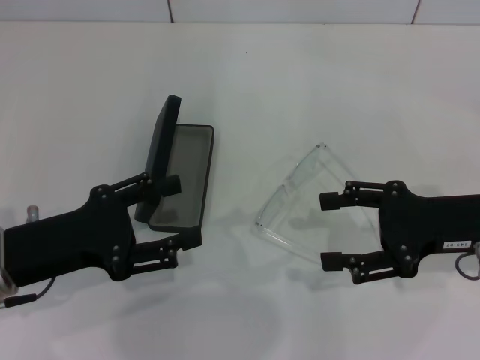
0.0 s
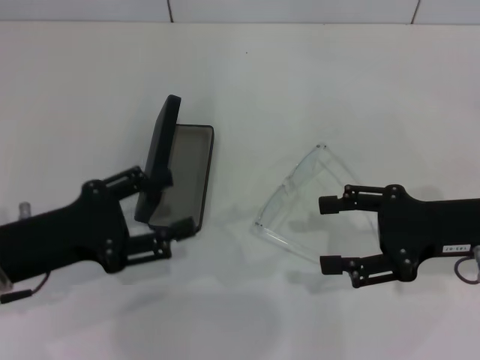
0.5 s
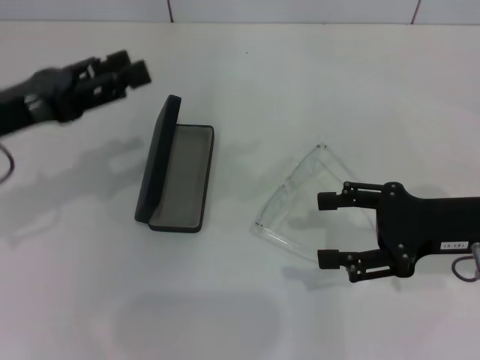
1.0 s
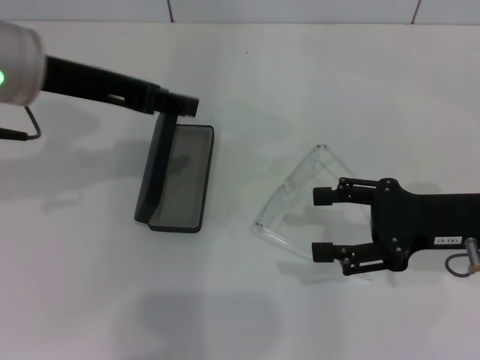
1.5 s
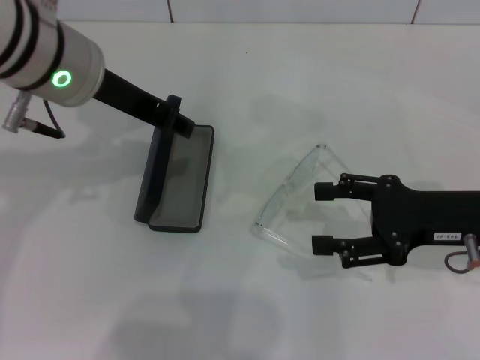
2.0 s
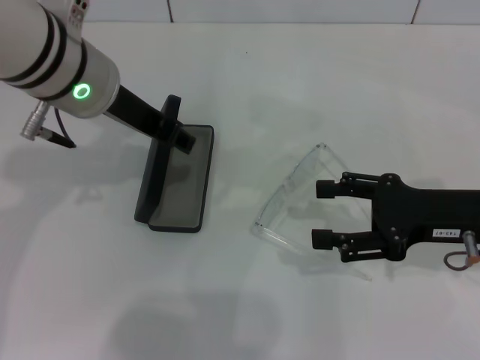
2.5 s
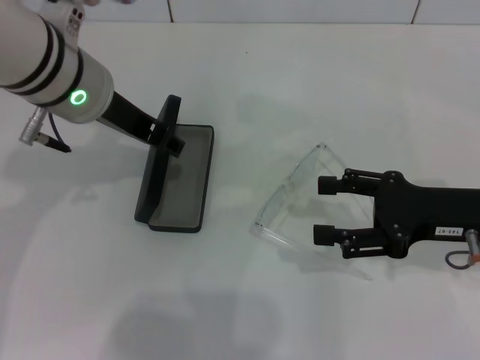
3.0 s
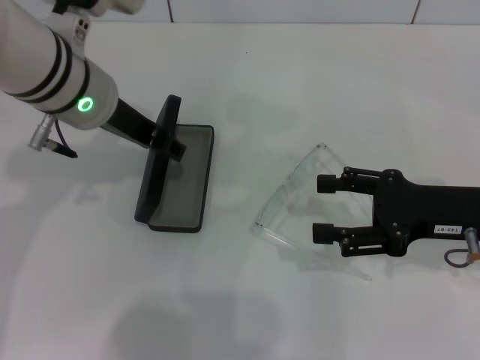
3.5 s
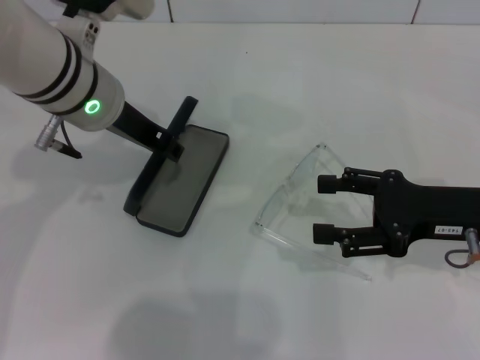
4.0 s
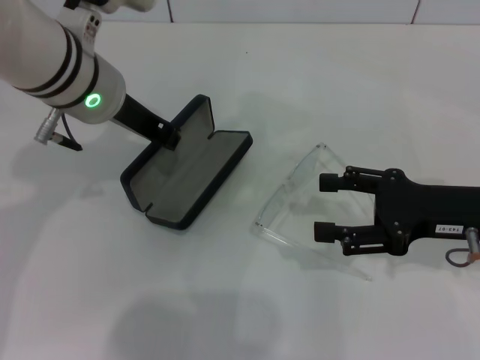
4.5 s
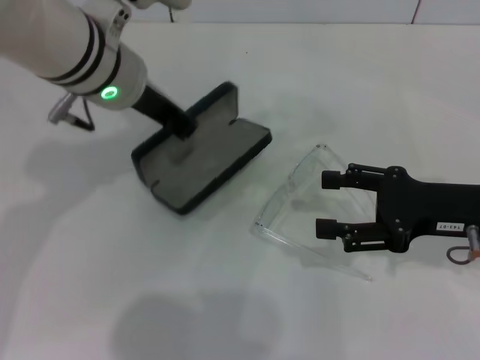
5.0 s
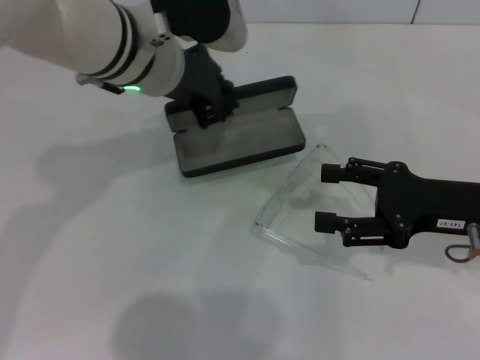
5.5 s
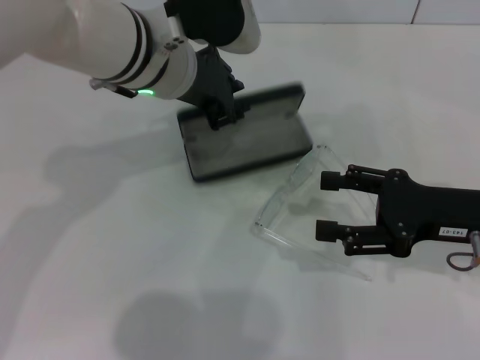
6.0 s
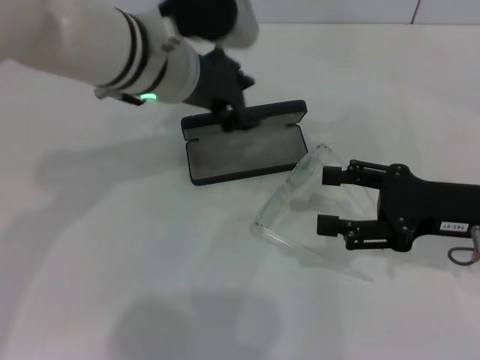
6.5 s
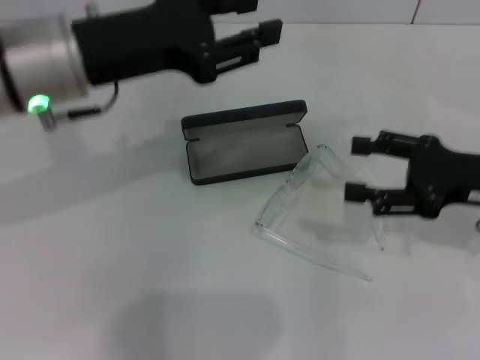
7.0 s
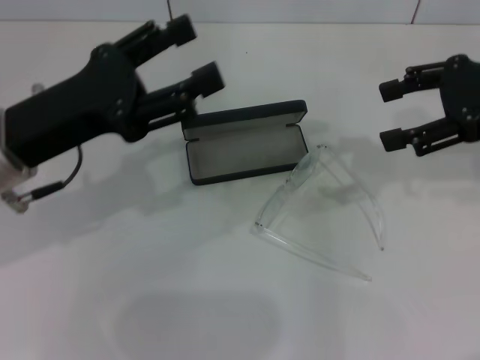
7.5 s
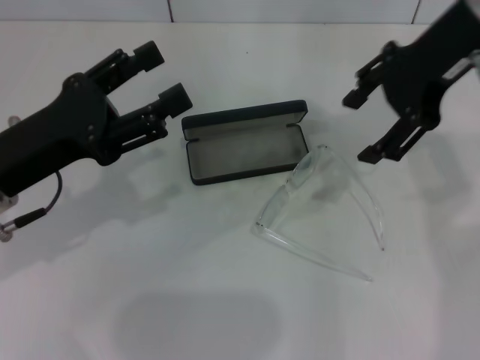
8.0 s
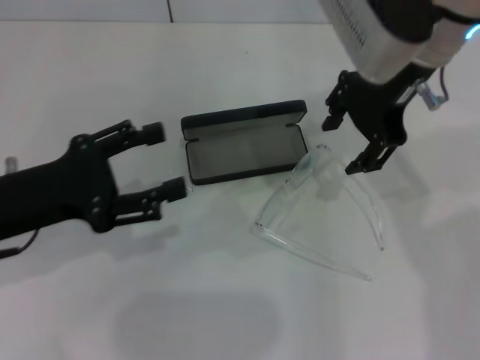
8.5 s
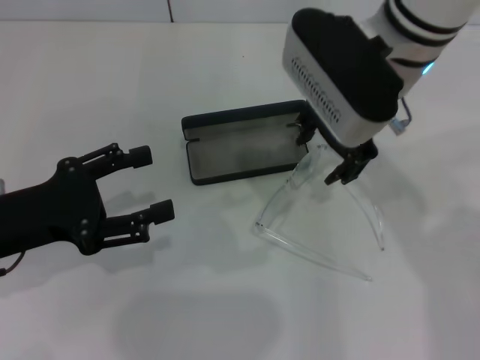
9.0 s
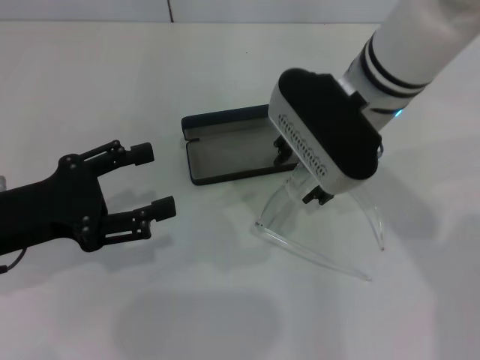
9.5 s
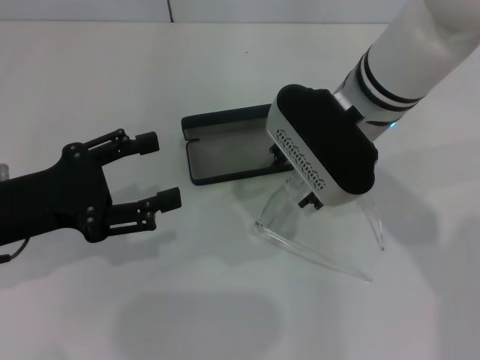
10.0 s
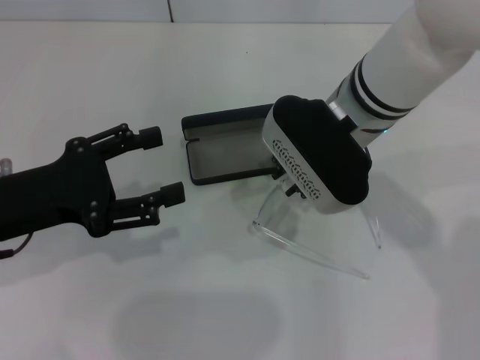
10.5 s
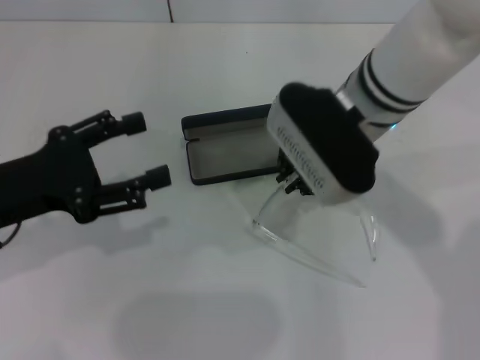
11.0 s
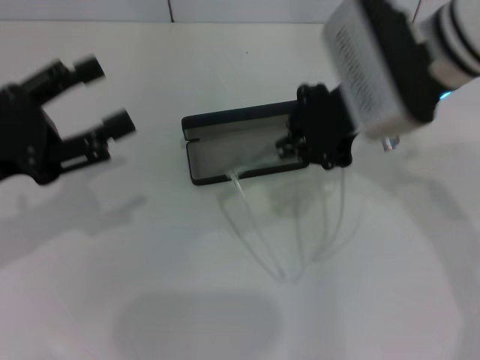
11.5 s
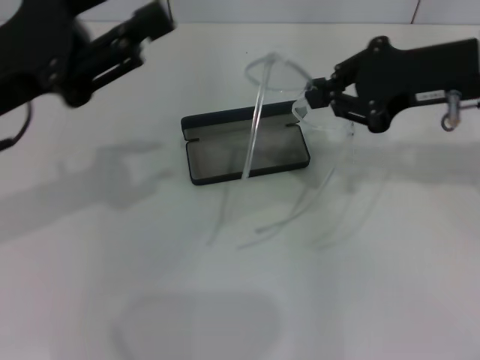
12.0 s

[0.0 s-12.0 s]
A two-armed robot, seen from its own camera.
Step, 0.0 to 4.0 s: Grab the glasses case with your left hand.
Step, 4.5 to 6.0 s: Place the glasses case in the center of the table with your left hand.
Step, 6.5 to 10.5 s: Grab the eyeglass frame with your right hand.
0.0 to 2.0 s: The left gripper moves upward, forward and to the right, some 20 cm.
2.0 to 4.0 s: The left gripper shifts by about 5 cm.
4.0 to 6.0 s: The left gripper is displaced to the right by some 5 cm.
6.0 to 8.0 s: The right gripper travels upward, forward and to the left by about 25 cm. The left gripper heads to the left and backward, covering some 20 cm, and opens its fingers.
8.0 to 10.0 s: The right gripper heads downward and to the left, covering approximately 15 cm.
10.0 to 12.0 s: The left gripper goes some 5 cm upward; the right gripper goes approximately 15 cm to the right, and closes up.

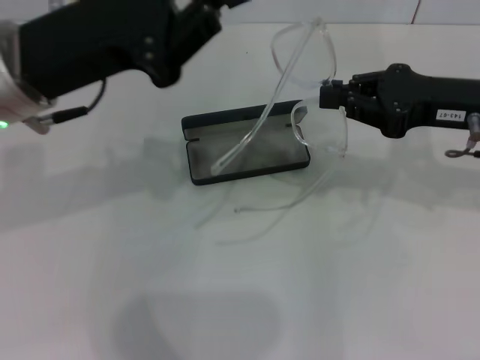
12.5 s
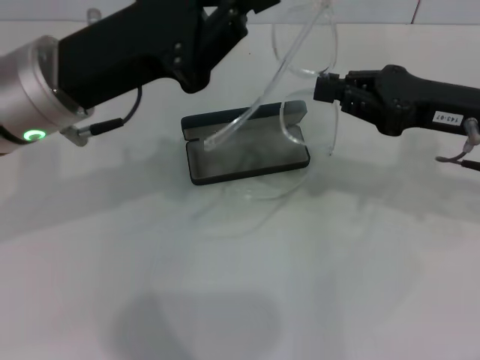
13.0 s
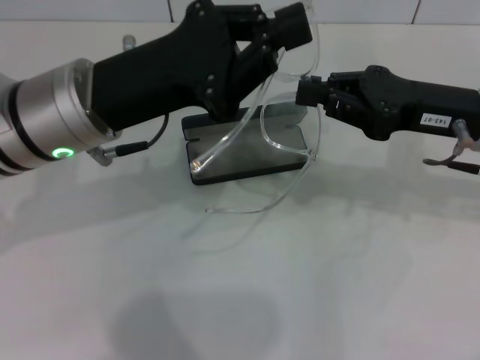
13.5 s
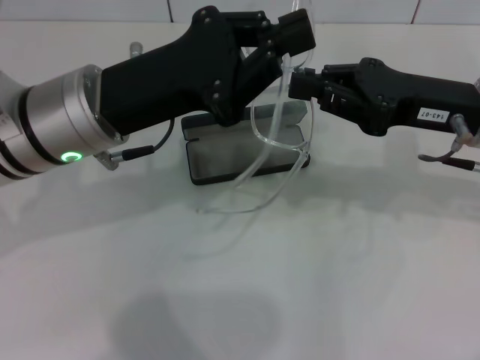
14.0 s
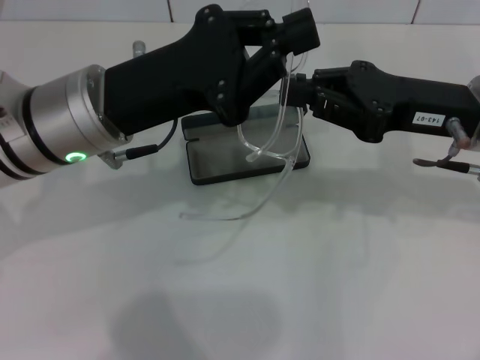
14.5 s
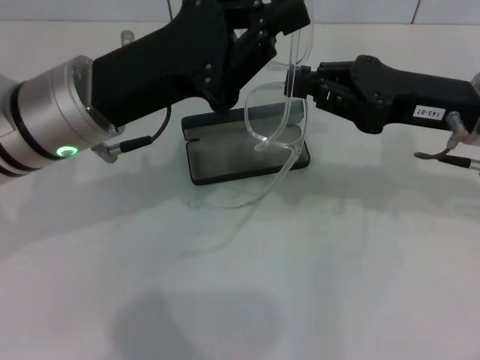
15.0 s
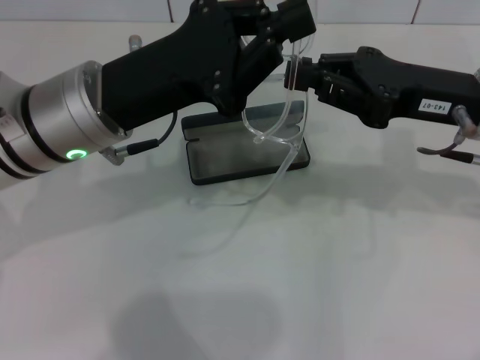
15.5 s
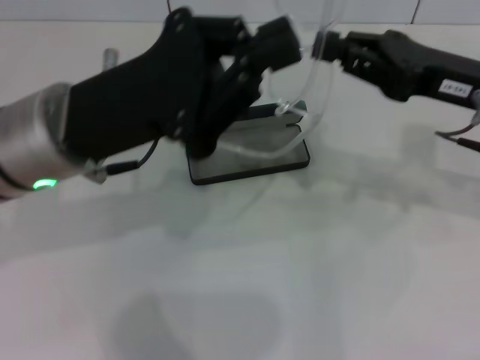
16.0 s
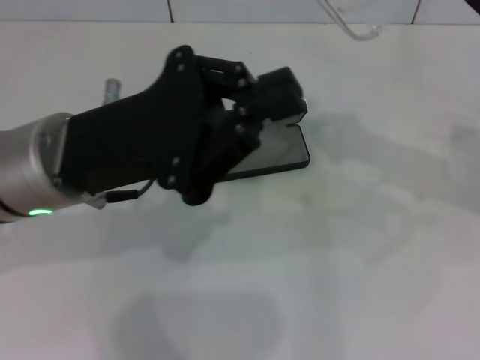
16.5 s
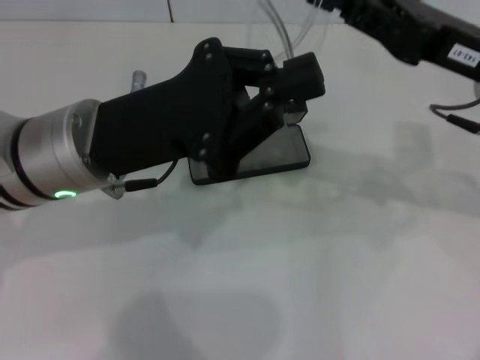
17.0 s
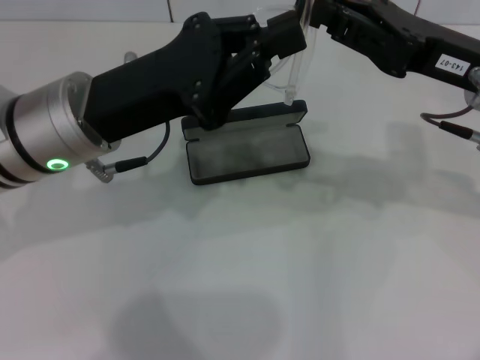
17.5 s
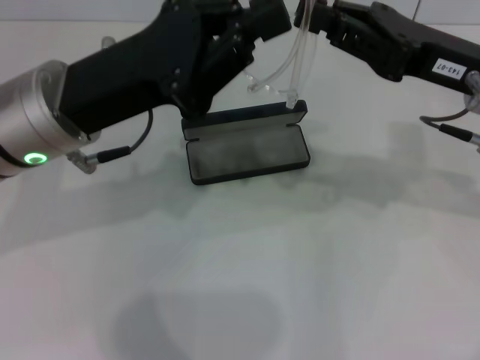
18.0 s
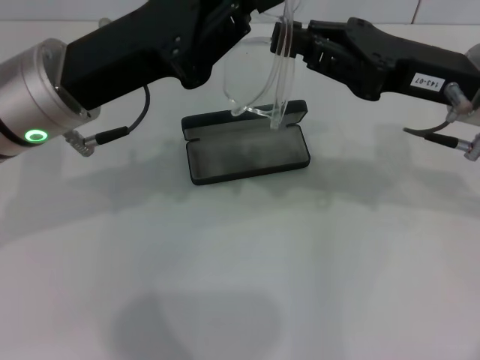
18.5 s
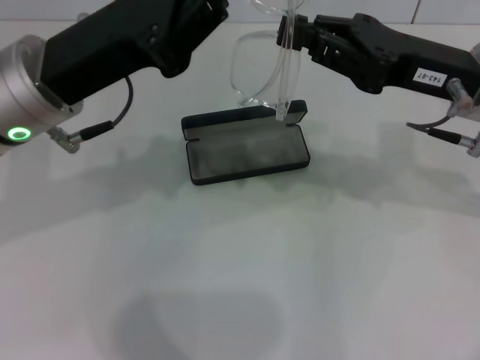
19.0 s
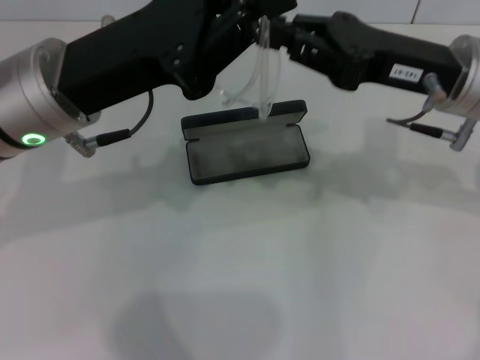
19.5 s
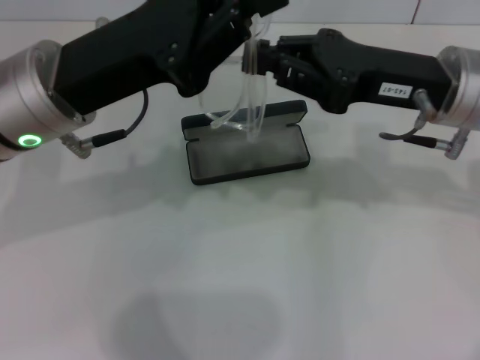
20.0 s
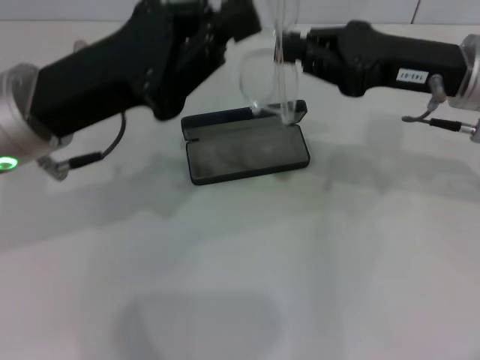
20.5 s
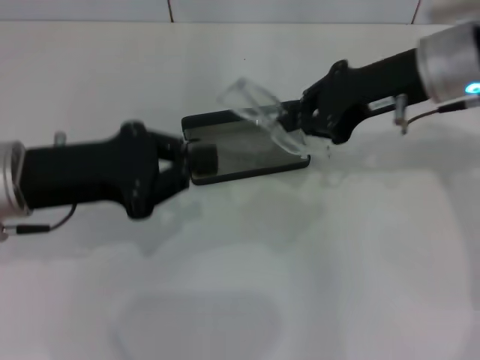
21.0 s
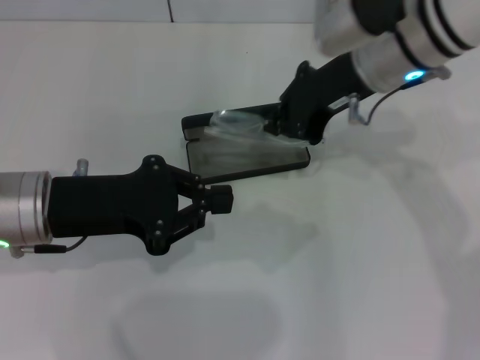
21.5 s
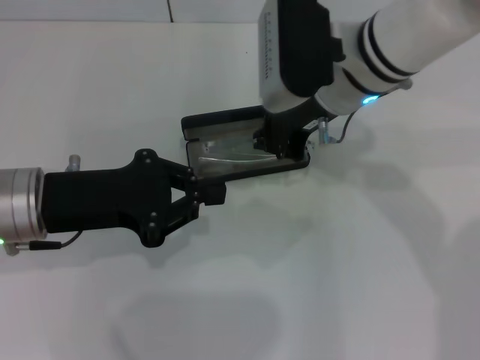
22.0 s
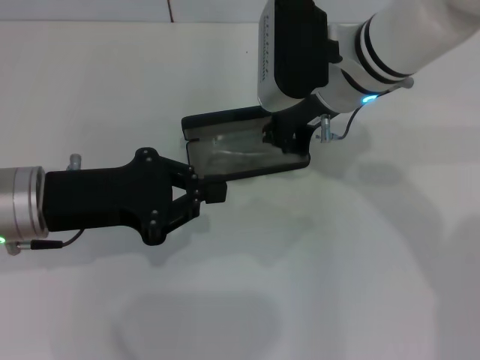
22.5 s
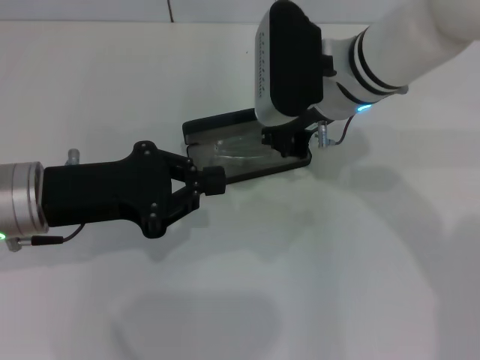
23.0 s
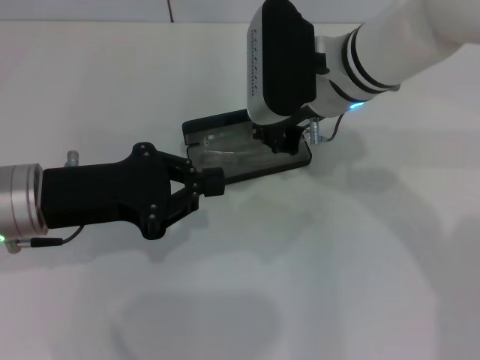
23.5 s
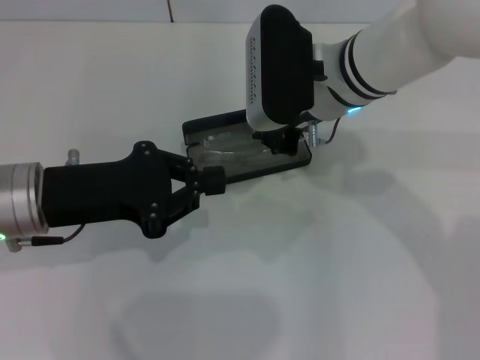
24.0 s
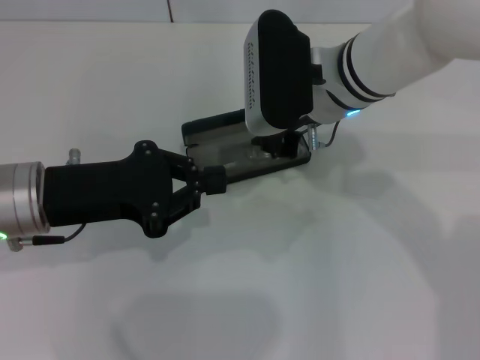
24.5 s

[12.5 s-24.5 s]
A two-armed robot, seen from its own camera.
Step, 12.5 to 17.5 s: Fold the frame with your left hand.
Step, 18.0 to 24.5 s: Put the glasses into the case with your right hand.
12.5 to 14.5 s: The left gripper changes place by approximately 5 cm.
14.5 to 16.5 s: The right gripper is displaced to the right by approximately 5 cm.
16.5 to 18.5 s: The right gripper is displaced to the left by about 5 cm.
18.5 to 20.5 s: The grippers make only small movements.
20.5 to 22.5 s: The right gripper goes about 15 cm to the left. The left gripper is displaced downward by about 5 cm.
22.5 to 24.5 s: The grippers move only a little.

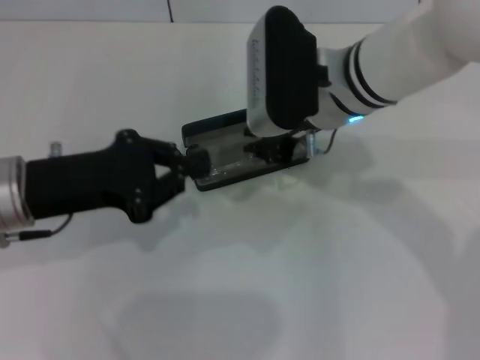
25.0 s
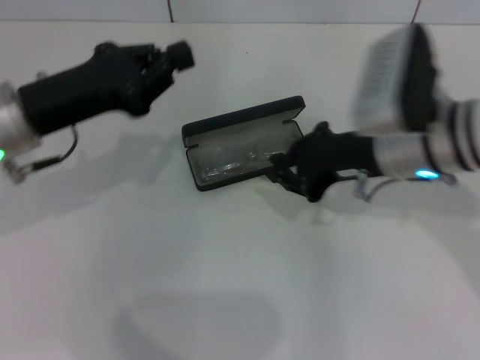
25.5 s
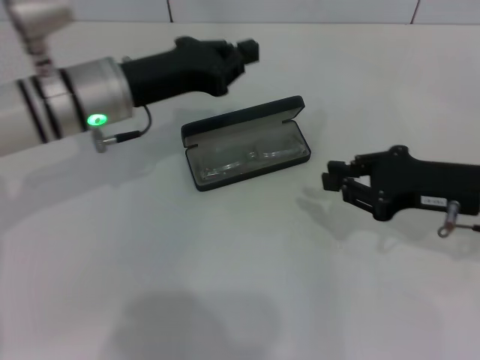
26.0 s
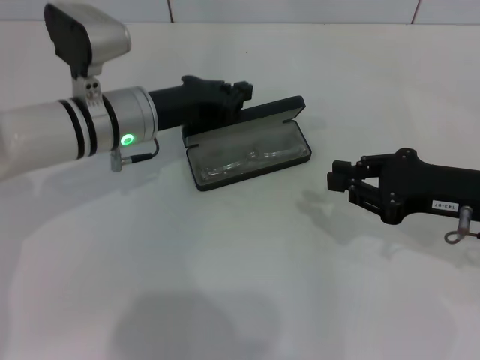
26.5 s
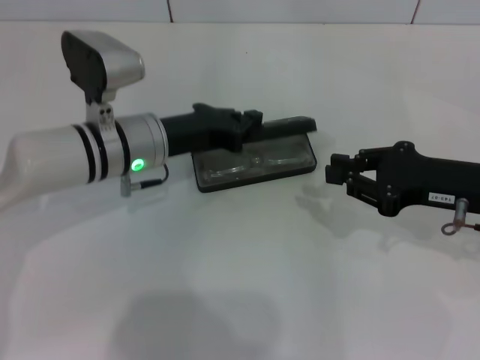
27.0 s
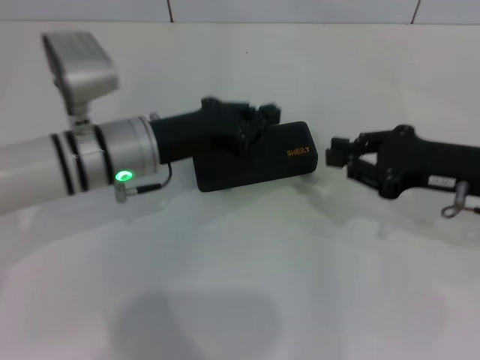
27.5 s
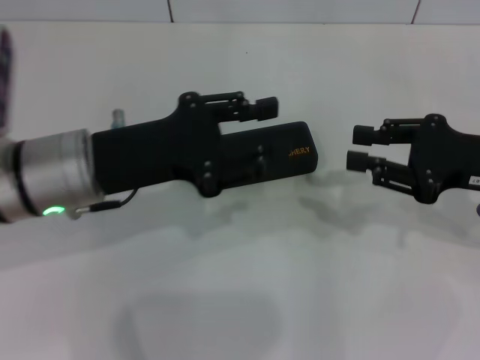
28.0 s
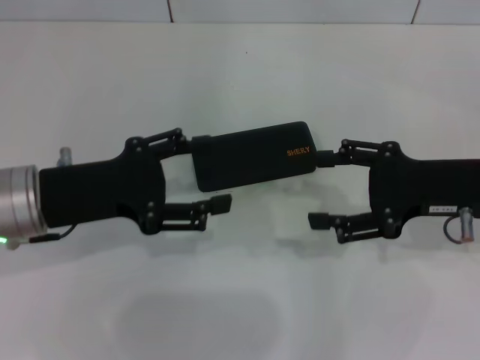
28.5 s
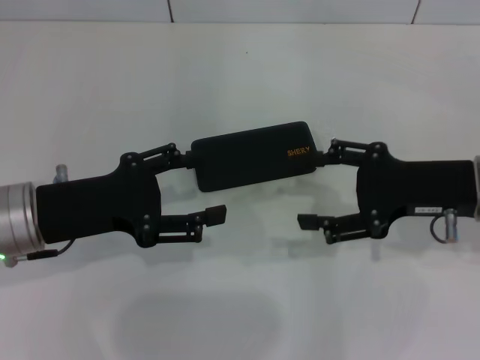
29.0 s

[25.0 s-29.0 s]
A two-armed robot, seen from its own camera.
Step, 25.0 to 27.0 s: Close the glasses case with your left hand.
25.0 to 27.0 s: The left gripper goes some 15 cm forward, to the right and downward. Meanwhile the right gripper is displaced to the right and backward by some 20 cm.
27.0 to 29.0 s: The left gripper goes approximately 15 cm backward and to the left, and opens up, while the right gripper opens.
